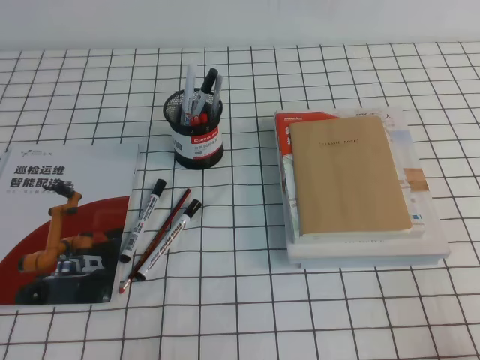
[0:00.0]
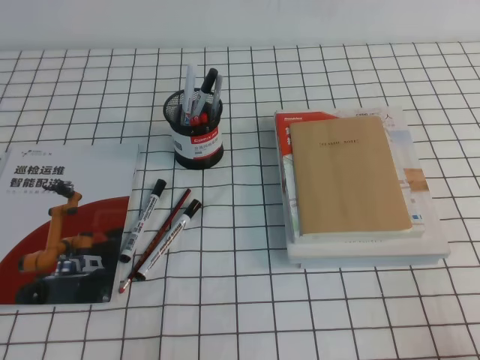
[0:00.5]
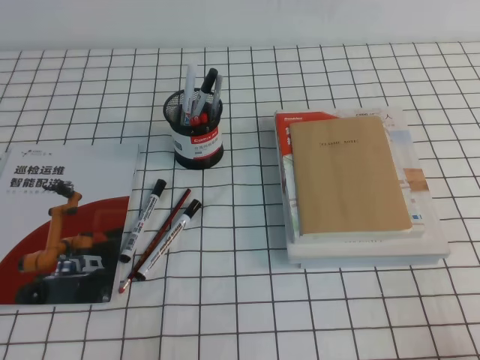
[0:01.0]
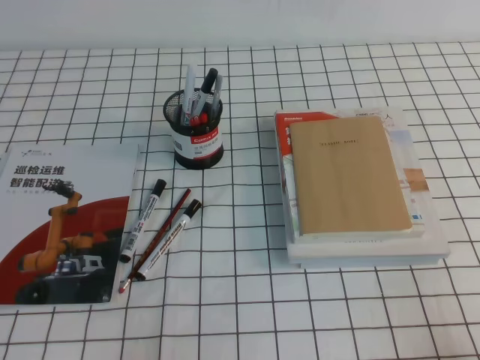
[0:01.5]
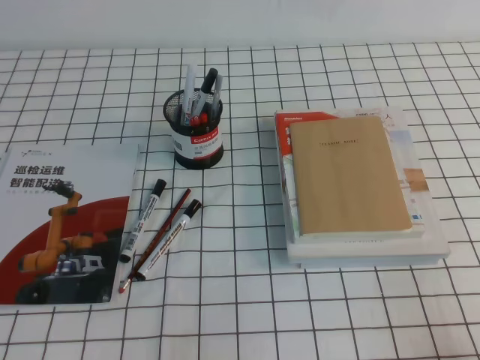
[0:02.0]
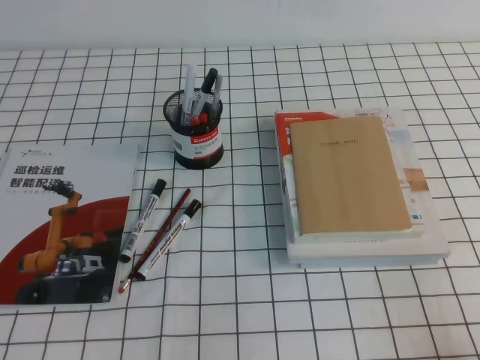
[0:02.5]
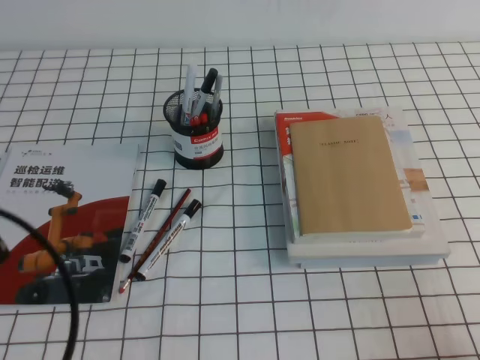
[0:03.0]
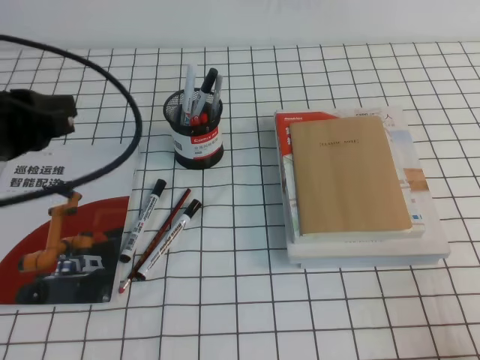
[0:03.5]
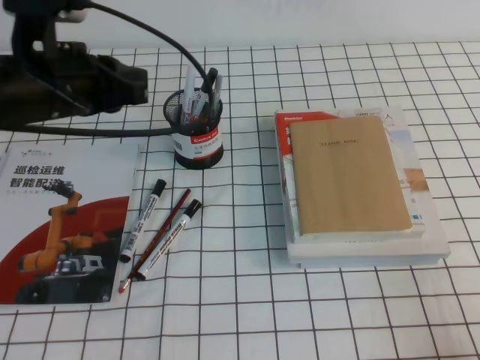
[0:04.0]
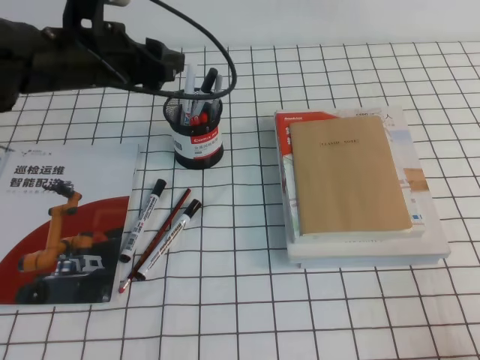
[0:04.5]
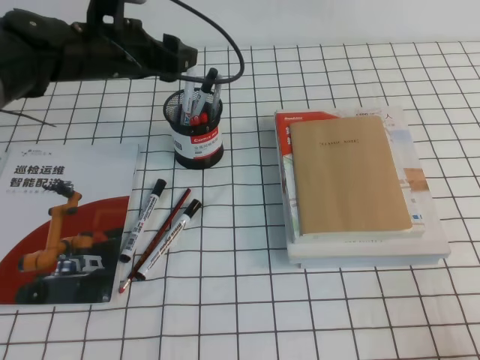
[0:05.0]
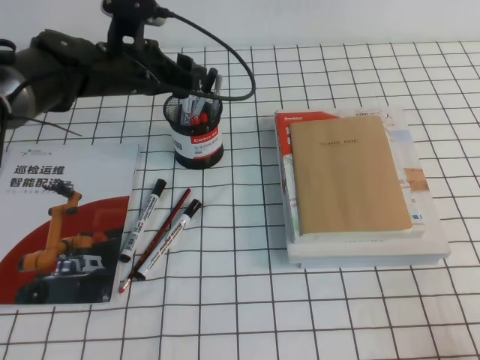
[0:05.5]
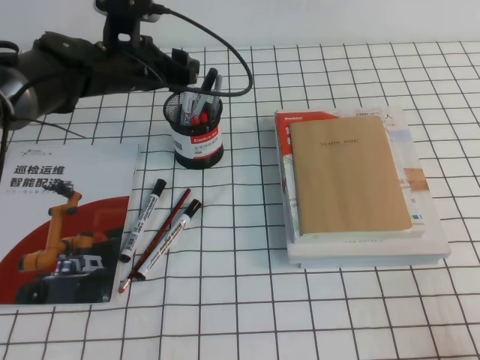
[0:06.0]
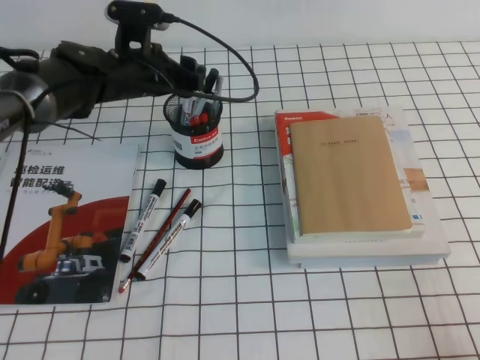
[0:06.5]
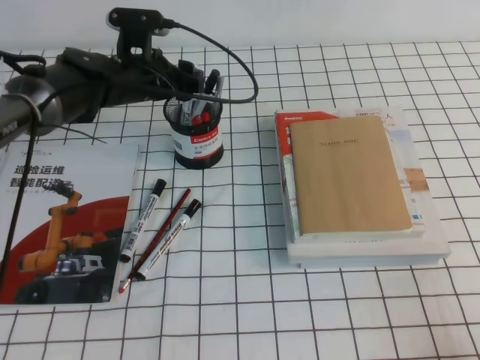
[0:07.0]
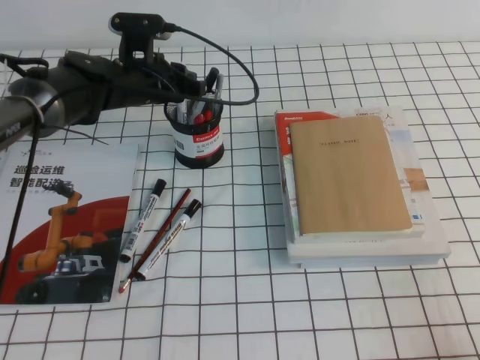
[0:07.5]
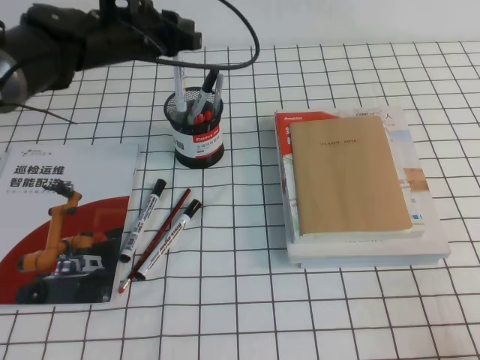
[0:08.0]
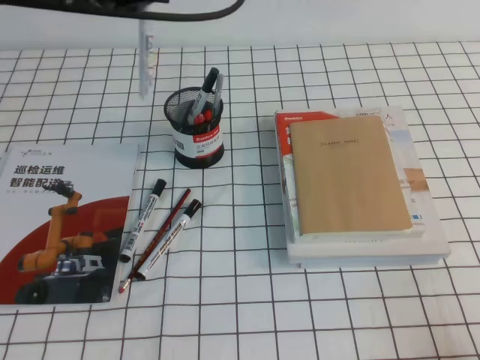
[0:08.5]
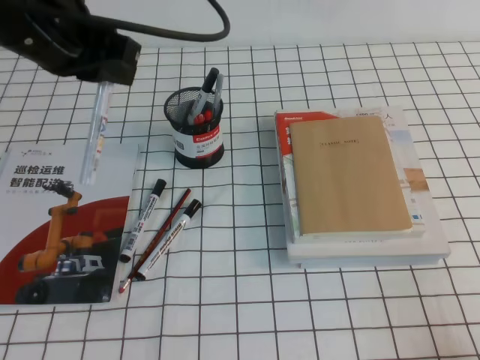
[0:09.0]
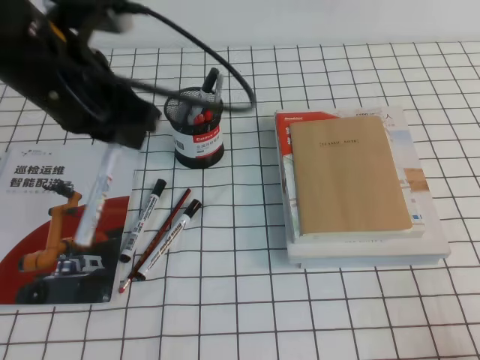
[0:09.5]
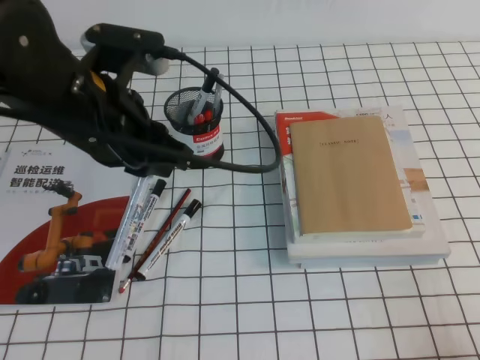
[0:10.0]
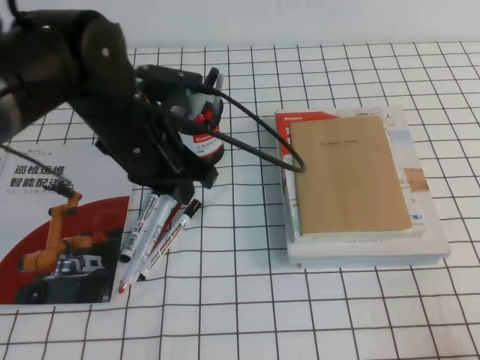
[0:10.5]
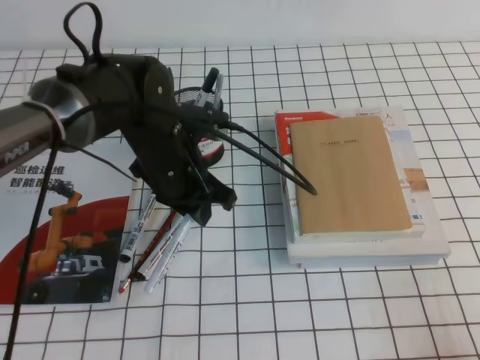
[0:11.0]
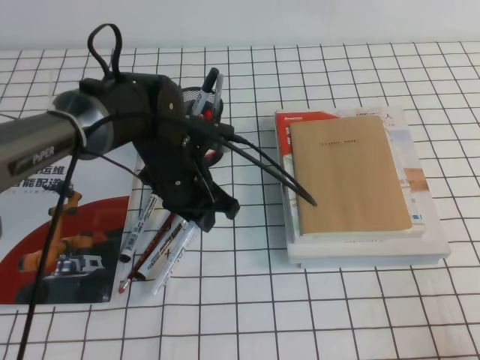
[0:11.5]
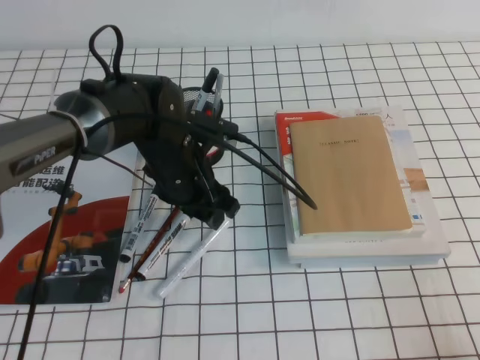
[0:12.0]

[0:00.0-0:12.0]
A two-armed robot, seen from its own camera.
0:02.0 to 0:04.0: The left gripper shifts approximately 30 cm forward and upward.
0:04.0 to 0:06.0: The left gripper goes approximately 15 cm forward, downward and to the right, and opens up.
0:06.0 to 0:08.0: The left gripper closes.
0:08.0 to 0:10.0: The left gripper moves backward, some 20 cm.
0:10.0 to 0:12.0: The left gripper travels downward, forward and to the right by roughly 15 cm, and opens its fingers.

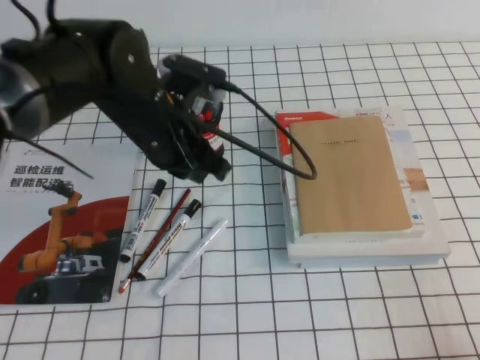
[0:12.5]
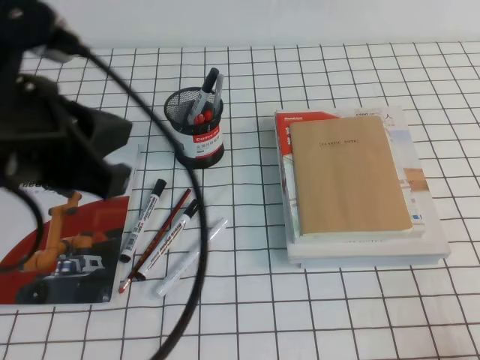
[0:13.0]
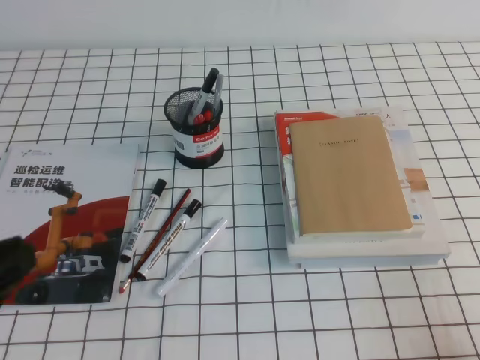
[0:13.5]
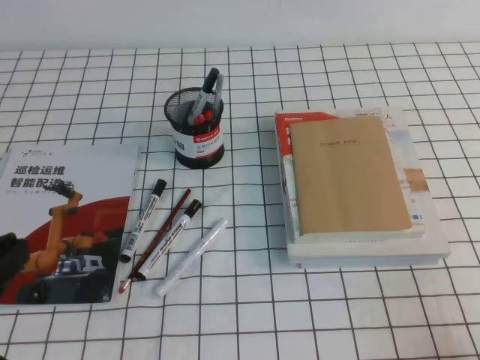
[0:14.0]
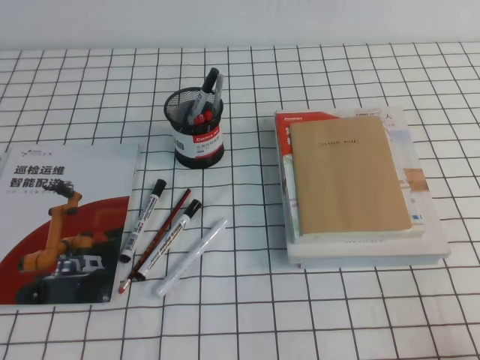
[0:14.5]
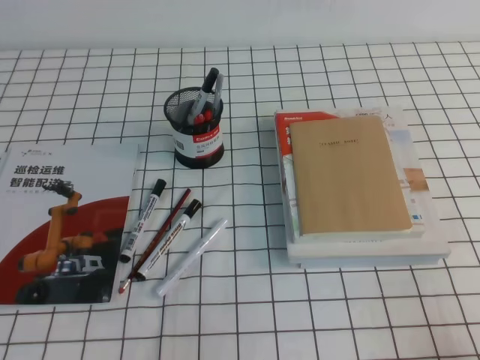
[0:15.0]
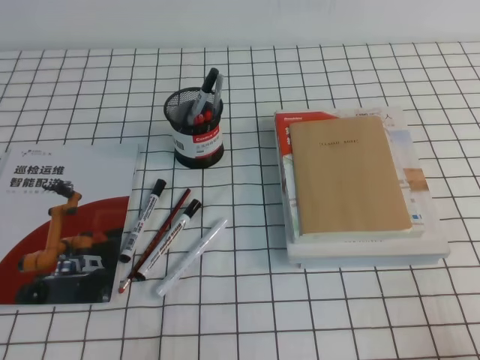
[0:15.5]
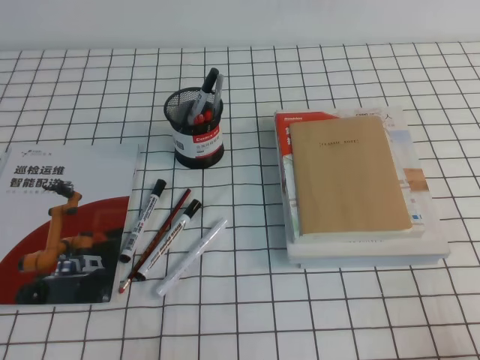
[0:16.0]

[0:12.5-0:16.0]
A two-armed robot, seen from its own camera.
Step, 0:12.5 to 0:16.0: Pick up the pen from the pen holder.
0:12.5 to 0:14.5: The left gripper travels backward and to the left by some 35 cm.
